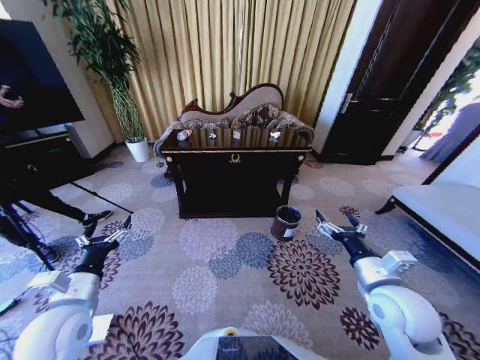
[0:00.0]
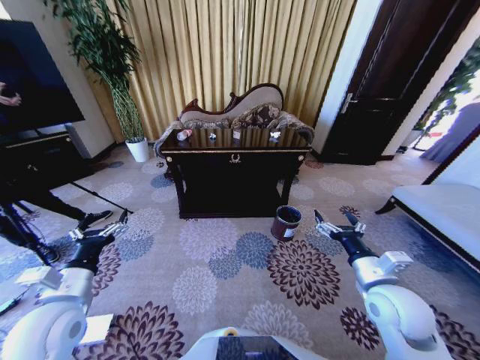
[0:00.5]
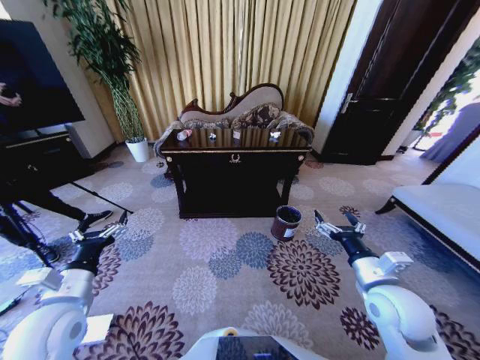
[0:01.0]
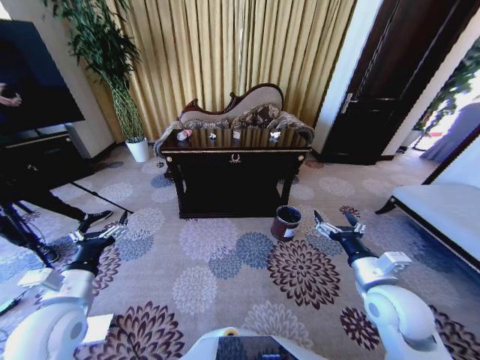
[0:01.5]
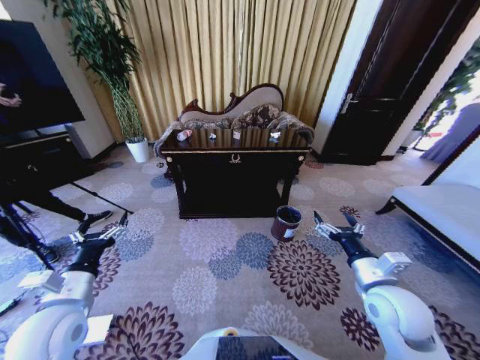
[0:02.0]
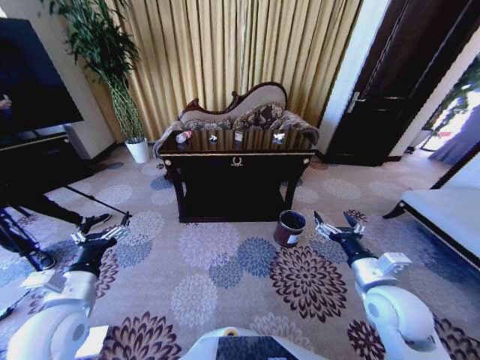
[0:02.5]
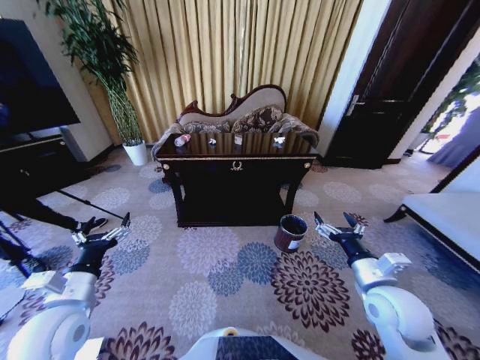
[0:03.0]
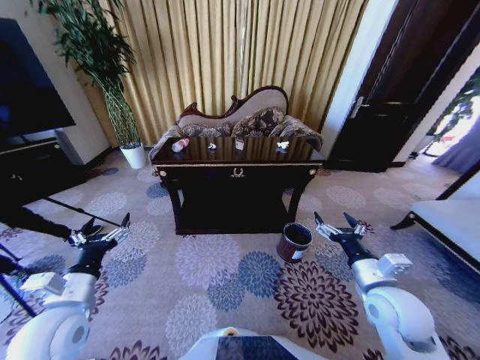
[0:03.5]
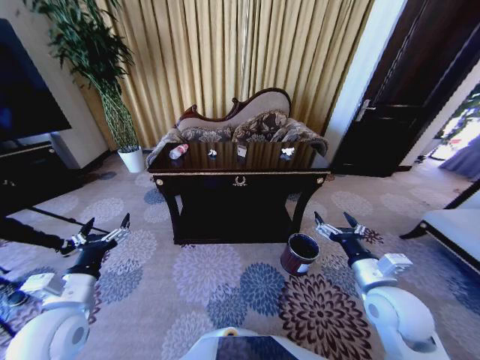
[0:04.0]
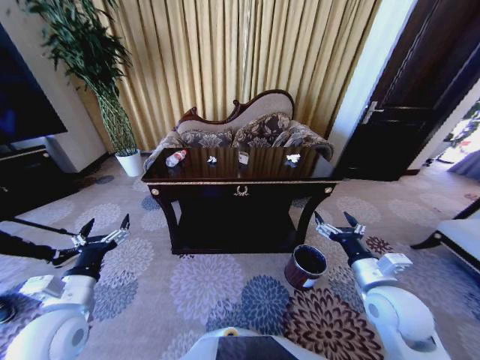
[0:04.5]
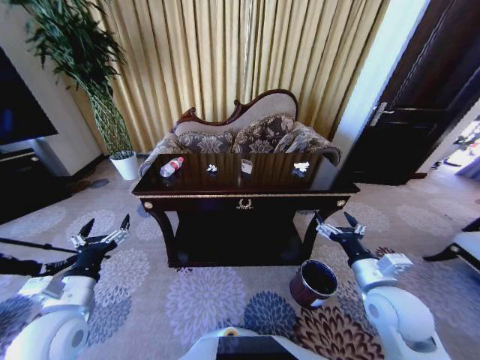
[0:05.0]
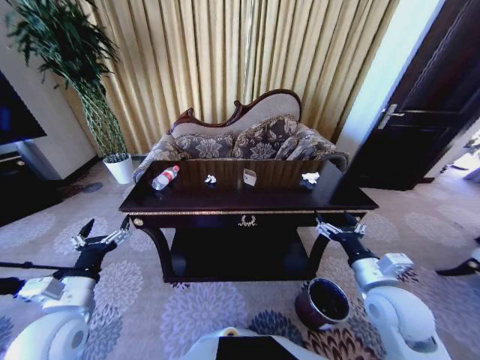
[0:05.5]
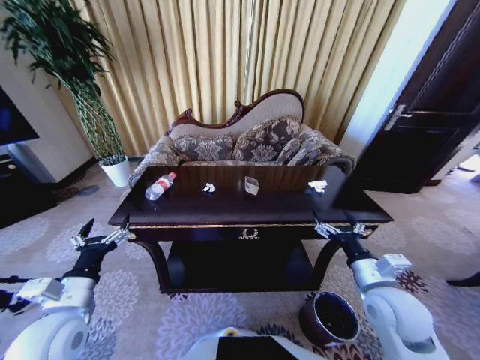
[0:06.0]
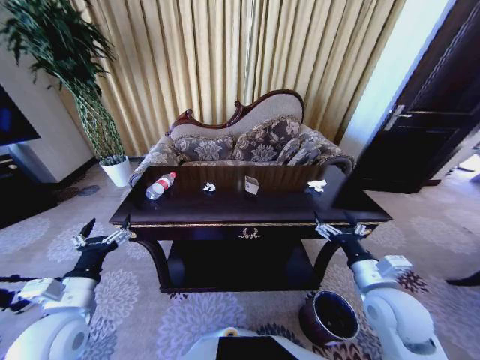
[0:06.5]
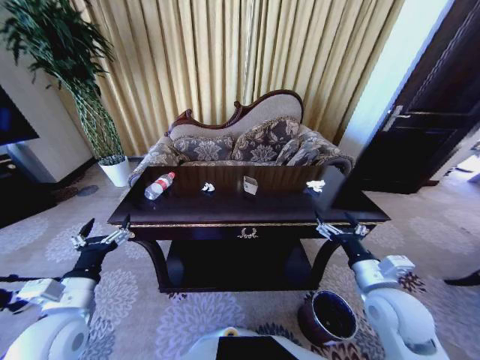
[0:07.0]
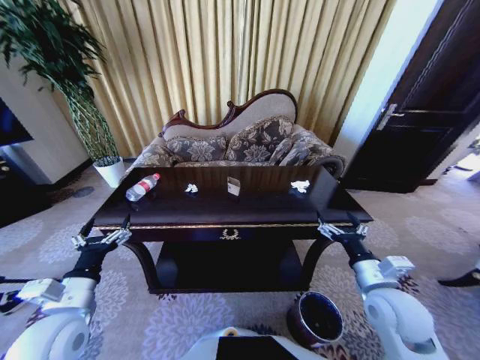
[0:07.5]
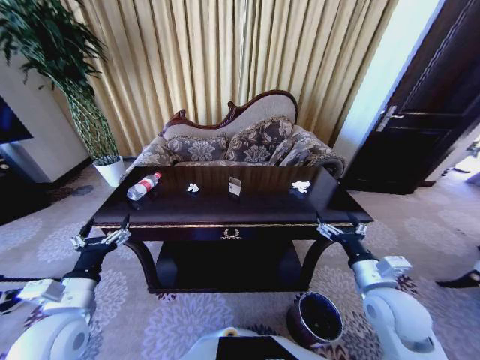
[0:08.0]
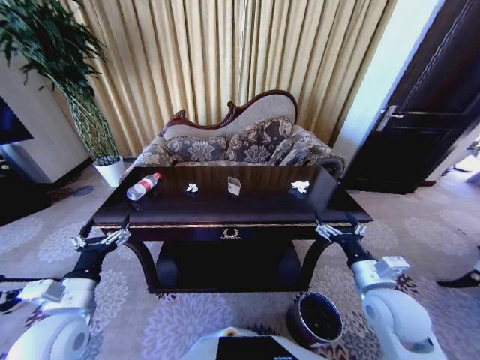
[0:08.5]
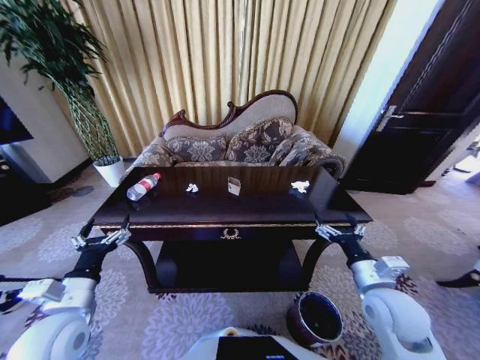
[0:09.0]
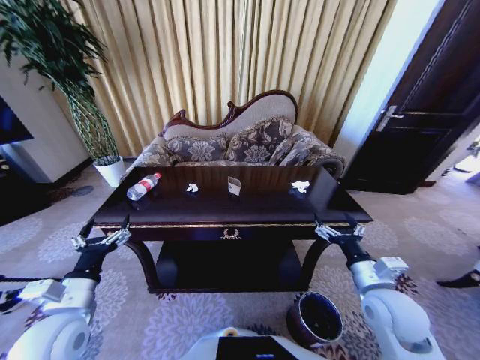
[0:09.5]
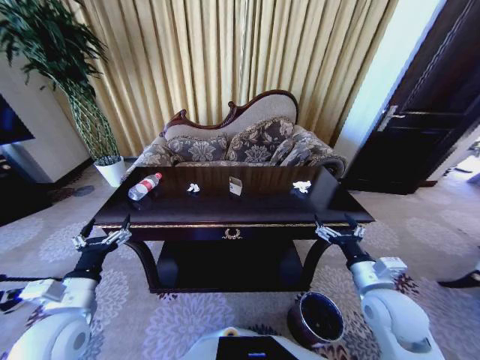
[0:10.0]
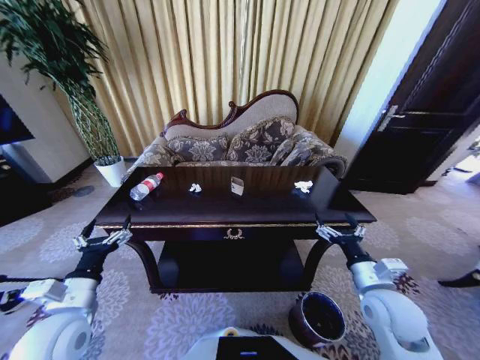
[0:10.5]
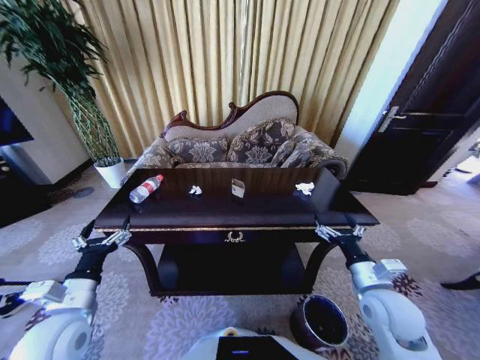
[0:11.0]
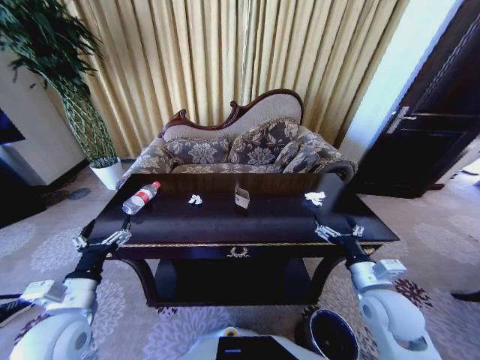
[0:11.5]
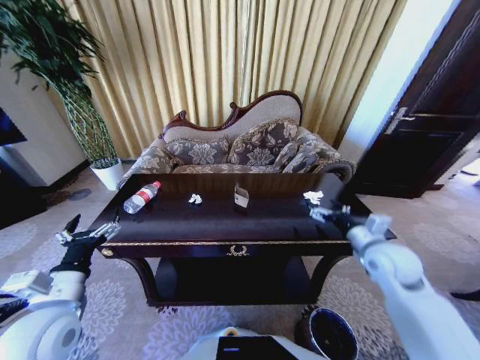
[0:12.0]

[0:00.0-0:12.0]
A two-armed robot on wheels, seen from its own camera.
Task of the whole recording: Move to the front of the table and place the trash on the table into the trash bin.
0:08.0 to 0:10.0: The two grippers keep their place.
0:10.0 to 0:12.0: The right gripper moves forward, some 10 cm.

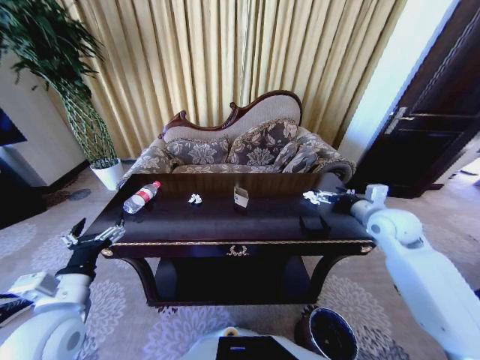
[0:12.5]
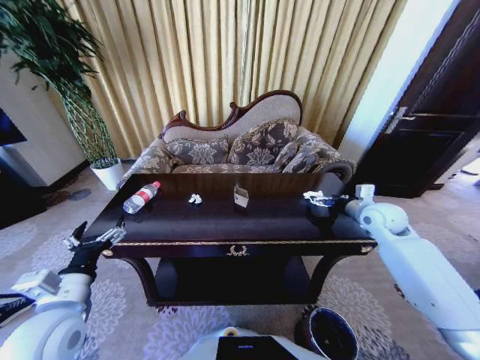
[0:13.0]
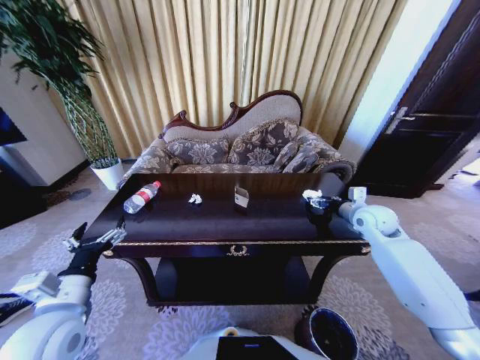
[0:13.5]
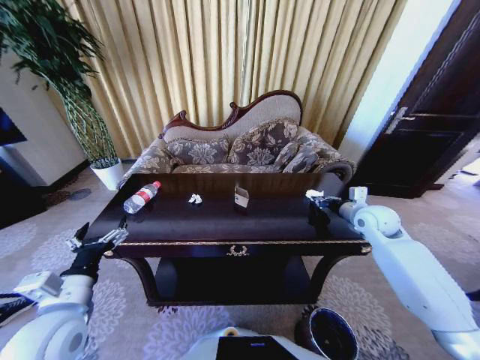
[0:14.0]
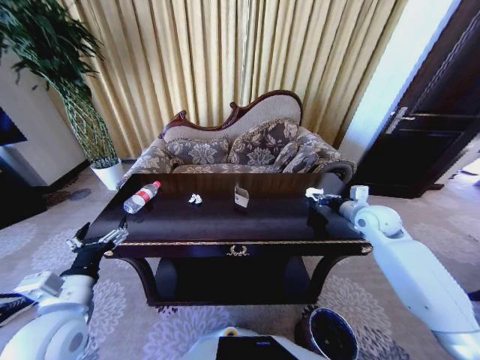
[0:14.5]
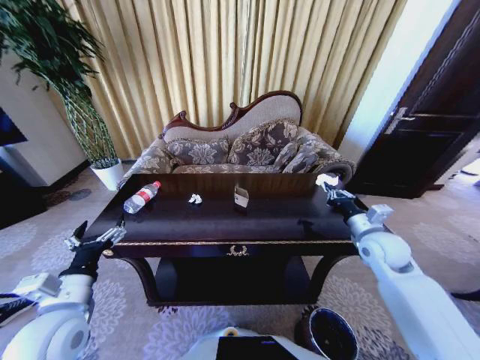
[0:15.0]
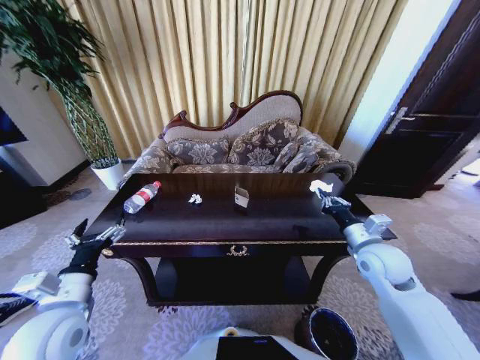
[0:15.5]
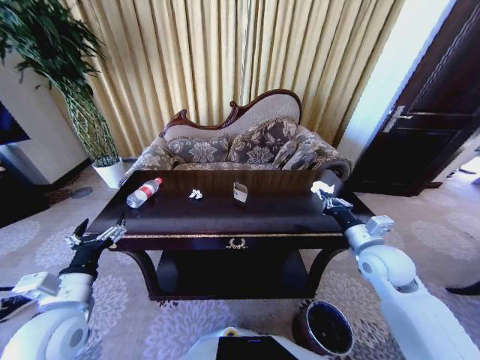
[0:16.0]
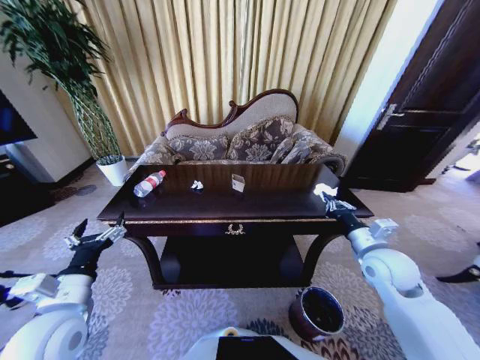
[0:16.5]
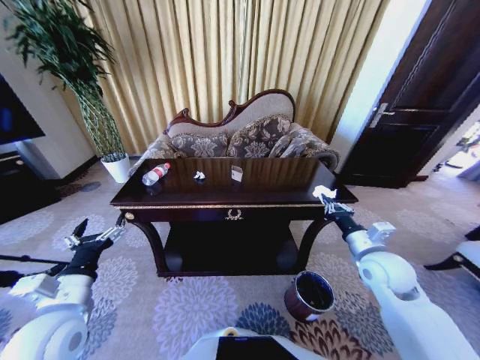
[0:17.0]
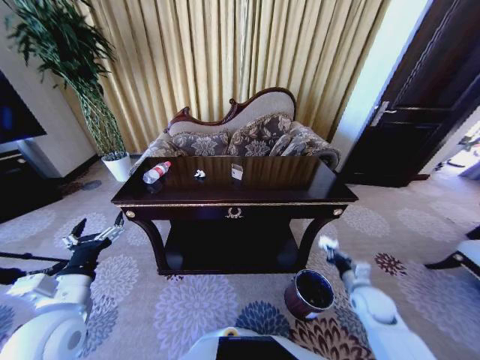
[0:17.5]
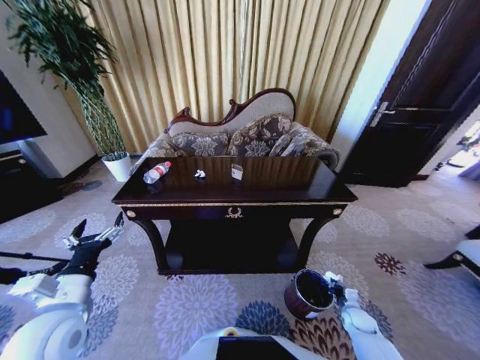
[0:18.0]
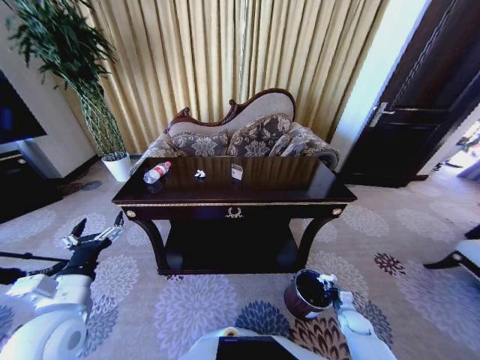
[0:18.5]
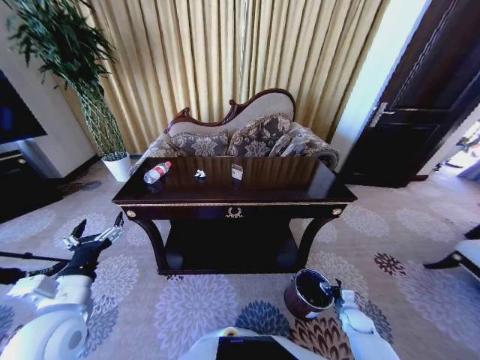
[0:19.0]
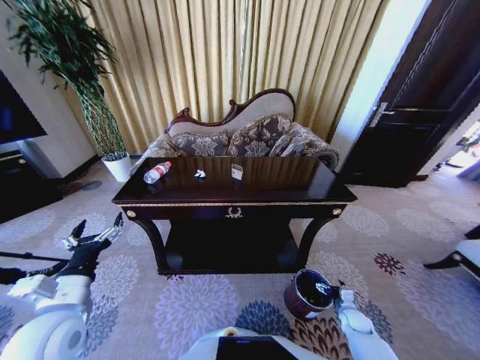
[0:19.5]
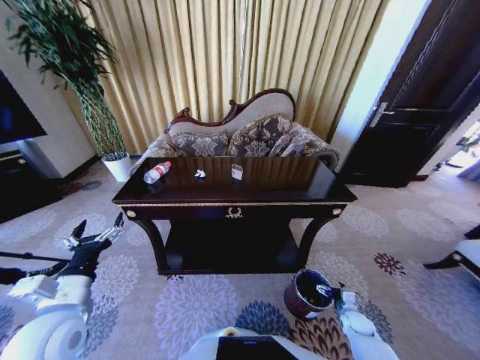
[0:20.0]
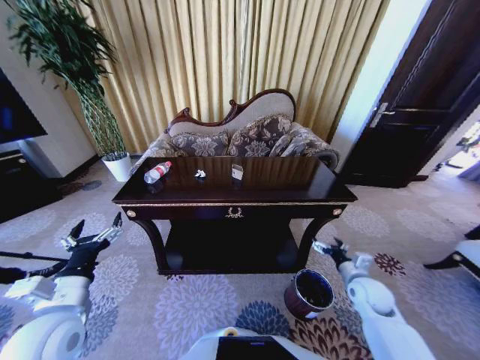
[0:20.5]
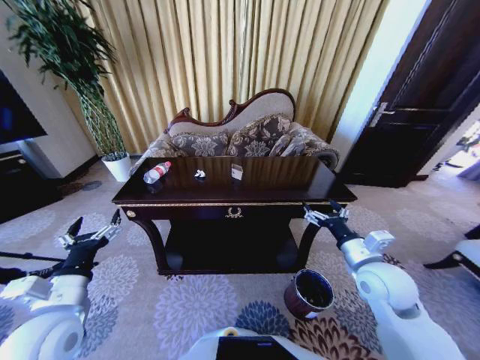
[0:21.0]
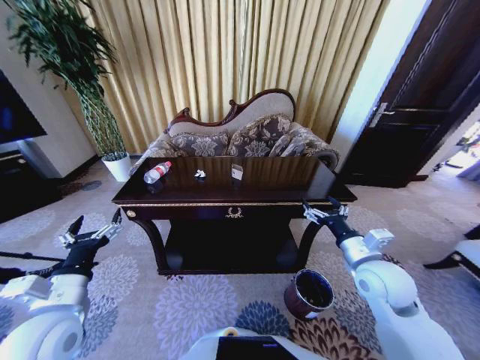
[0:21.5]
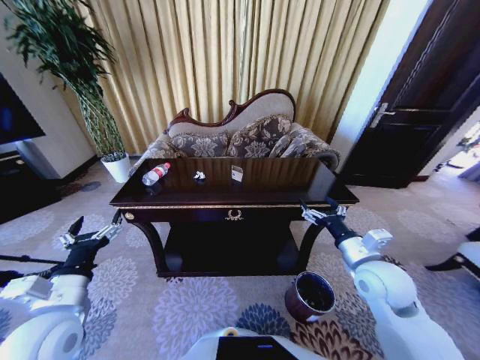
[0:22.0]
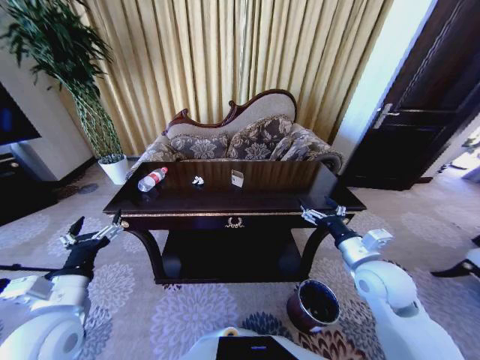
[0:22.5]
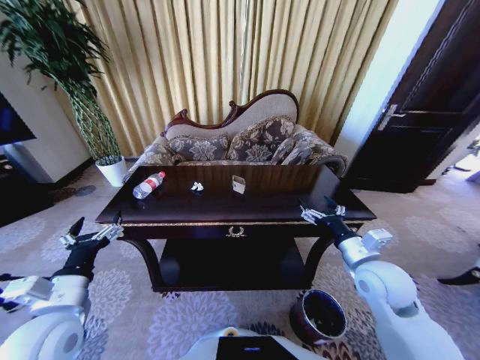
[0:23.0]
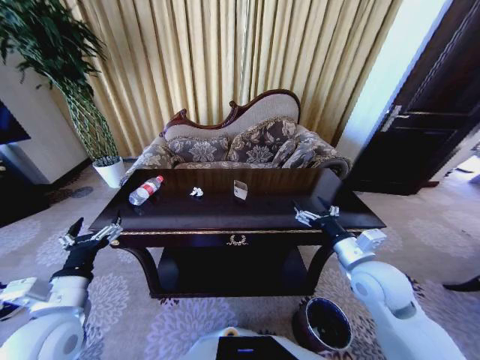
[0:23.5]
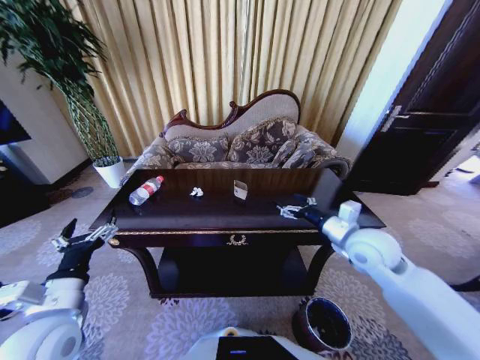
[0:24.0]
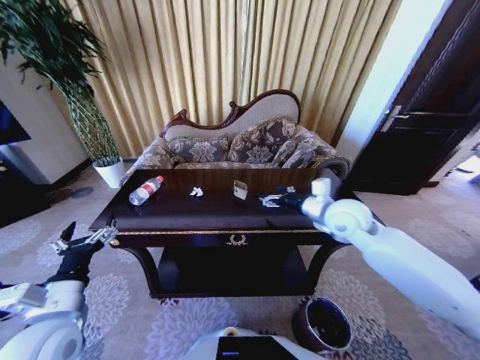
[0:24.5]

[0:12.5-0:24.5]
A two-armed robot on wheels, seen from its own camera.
Task of the whole recording: Move to the front of the table and place the trash on the table into the trash bin.
0:12.5 to 0:14.5: The right gripper moves roughly 5 cm, and closes up.
0:14.5 to 0:16.5: The right gripper moves backward, some 15 cm.
0:16.5 to 0:18.5: The right gripper moves downward, some 35 cm.
0:18.5 to 0:20.5: The right gripper goes about 20 cm upward, and opens up.
0:20.5 to 0:22.5: The right gripper heads upward and to the left, covering about 15 cm.
0:22.5 to 0:24.5: The right gripper shifts roughly 15 cm forward, upward and to the left.

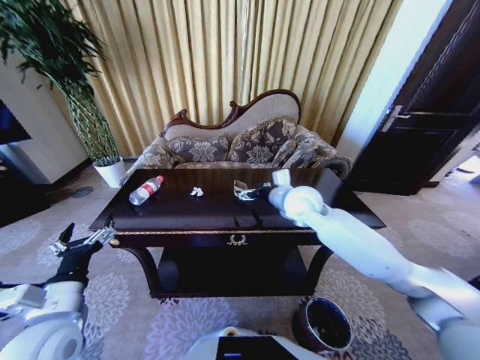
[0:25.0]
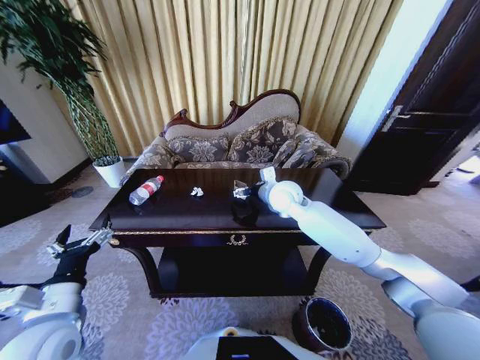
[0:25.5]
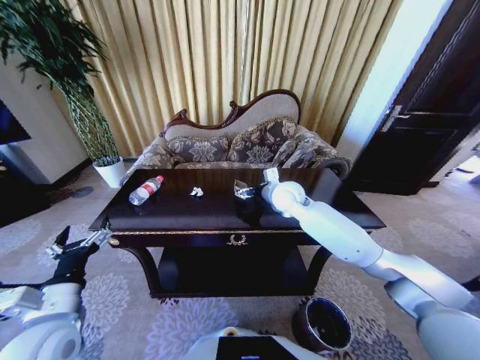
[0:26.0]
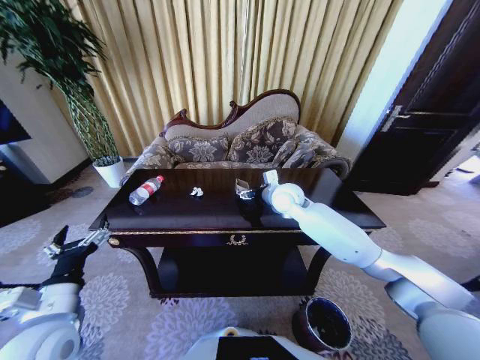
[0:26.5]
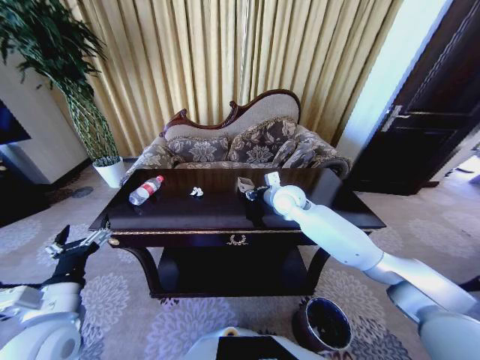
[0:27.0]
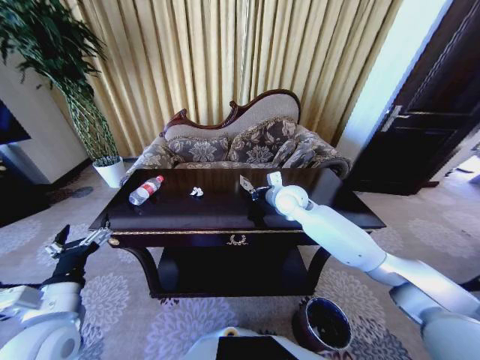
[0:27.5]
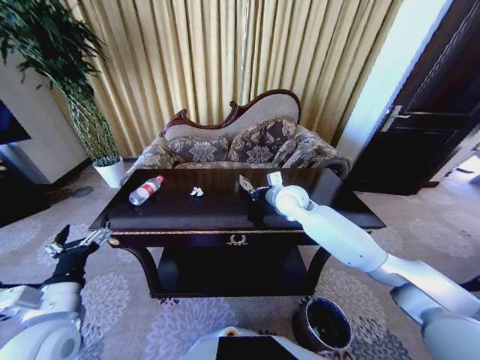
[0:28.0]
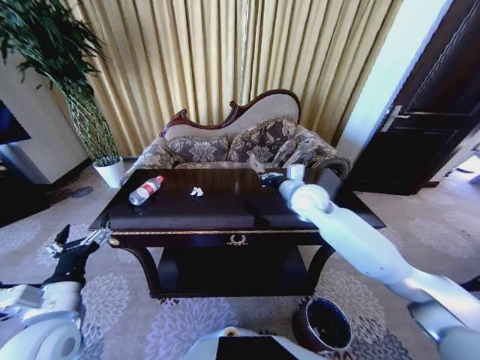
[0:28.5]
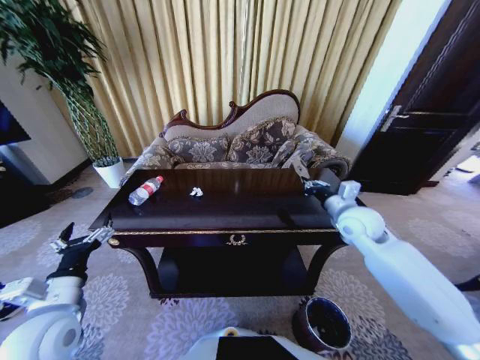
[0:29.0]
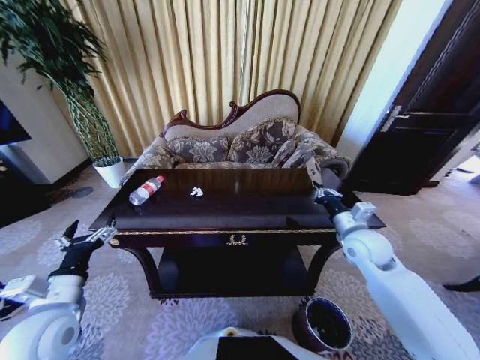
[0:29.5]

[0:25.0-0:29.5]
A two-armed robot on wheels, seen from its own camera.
Task of the whole recording: Move to the front of the table and place the trash on the table into the trash bin.
0:25.0 to 0:27.0: The right gripper moves forward, about 5 cm, and closes up.
0:27.0 to 0:29.5: The right gripper moves to the right and backward, about 20 cm, and closes its fingers.
